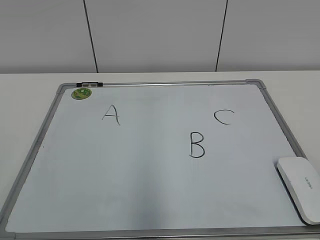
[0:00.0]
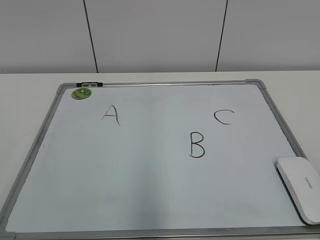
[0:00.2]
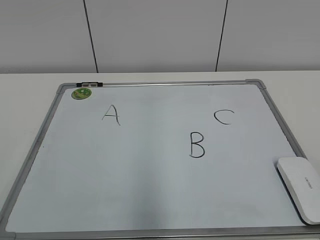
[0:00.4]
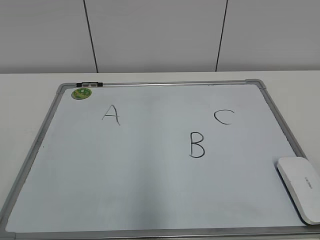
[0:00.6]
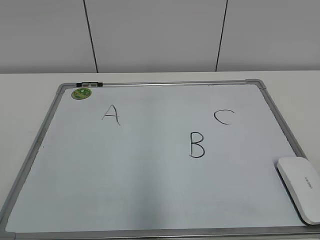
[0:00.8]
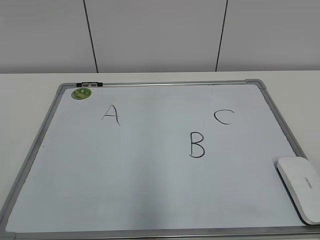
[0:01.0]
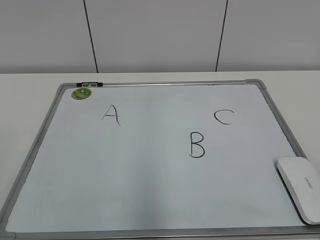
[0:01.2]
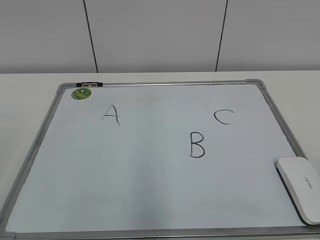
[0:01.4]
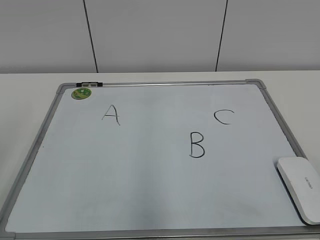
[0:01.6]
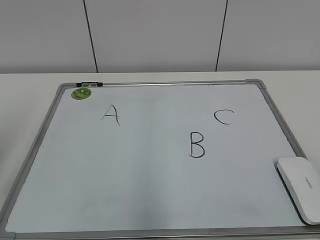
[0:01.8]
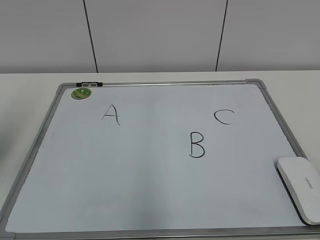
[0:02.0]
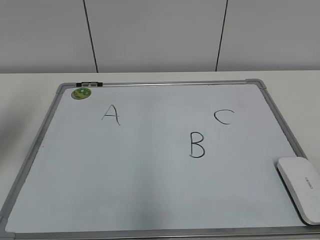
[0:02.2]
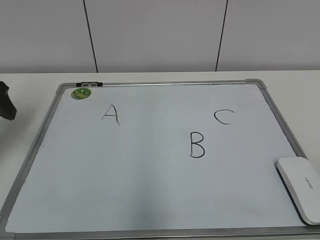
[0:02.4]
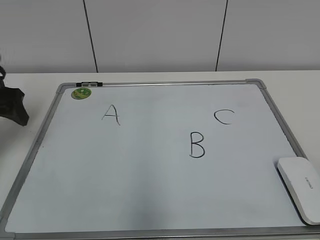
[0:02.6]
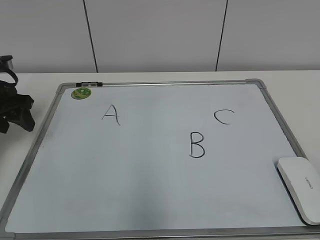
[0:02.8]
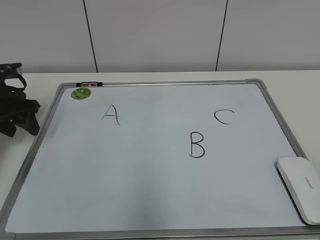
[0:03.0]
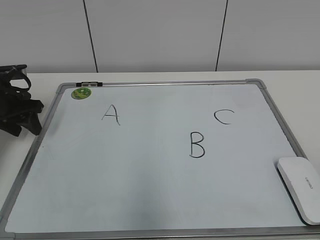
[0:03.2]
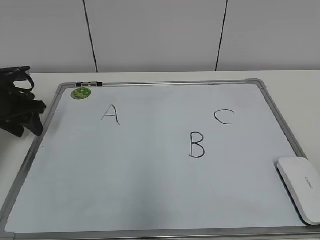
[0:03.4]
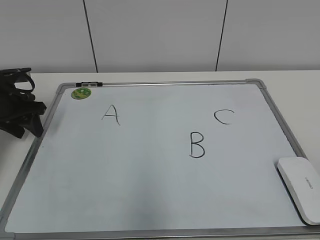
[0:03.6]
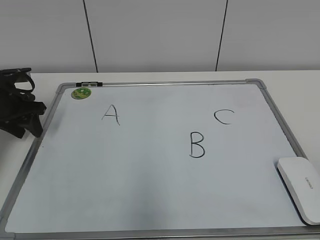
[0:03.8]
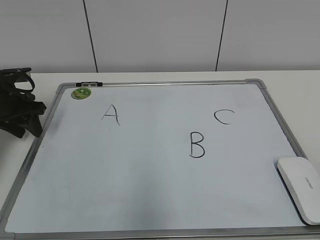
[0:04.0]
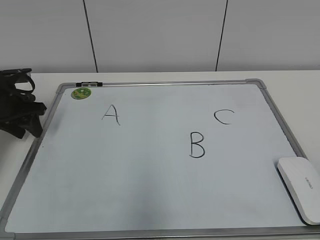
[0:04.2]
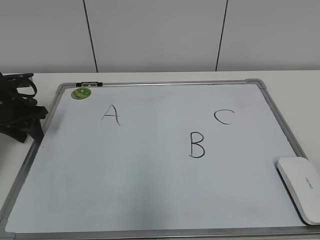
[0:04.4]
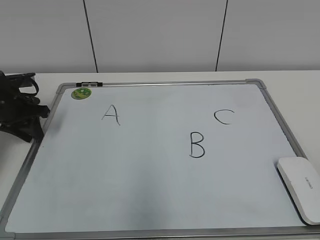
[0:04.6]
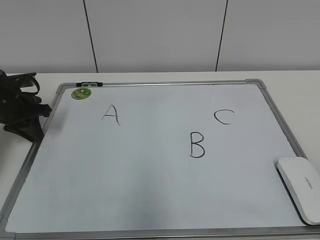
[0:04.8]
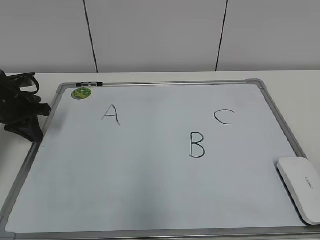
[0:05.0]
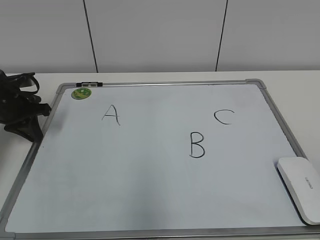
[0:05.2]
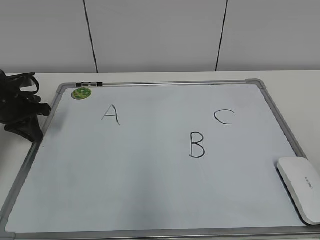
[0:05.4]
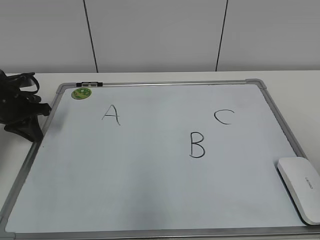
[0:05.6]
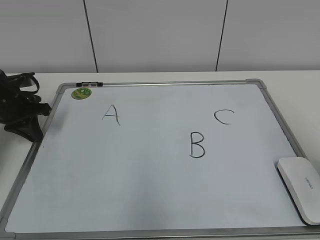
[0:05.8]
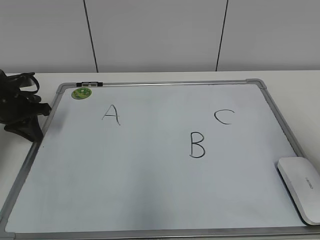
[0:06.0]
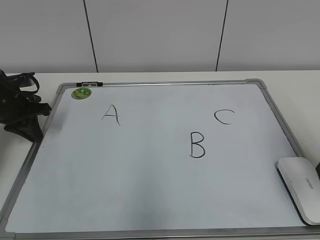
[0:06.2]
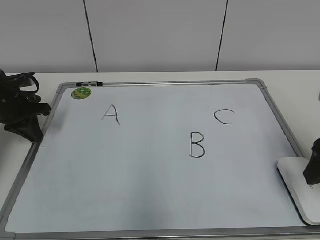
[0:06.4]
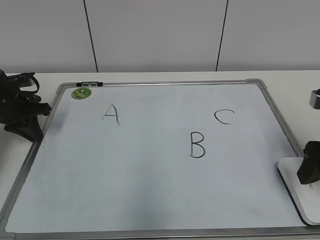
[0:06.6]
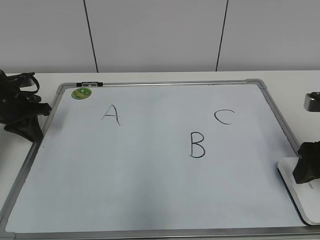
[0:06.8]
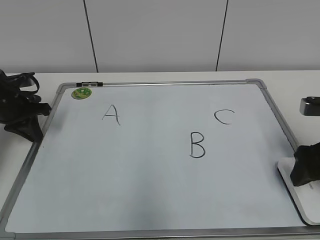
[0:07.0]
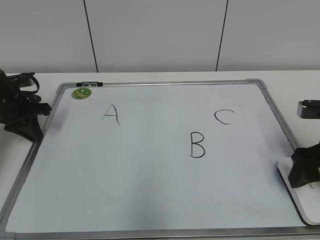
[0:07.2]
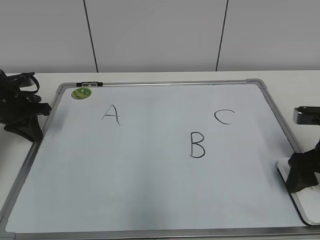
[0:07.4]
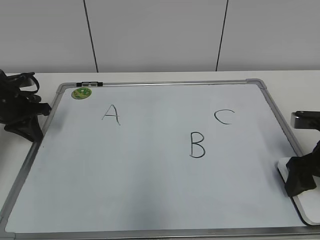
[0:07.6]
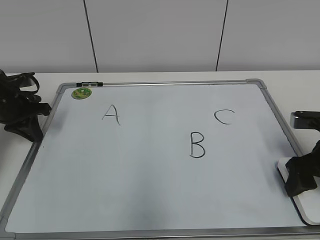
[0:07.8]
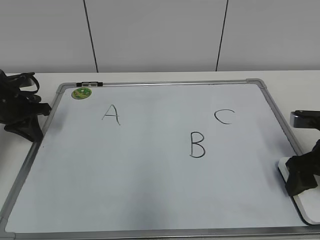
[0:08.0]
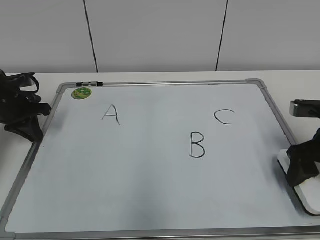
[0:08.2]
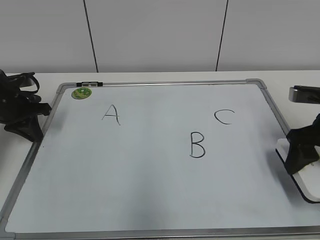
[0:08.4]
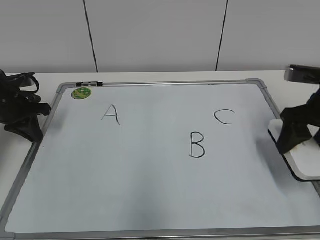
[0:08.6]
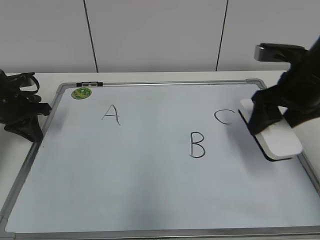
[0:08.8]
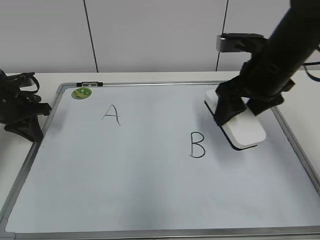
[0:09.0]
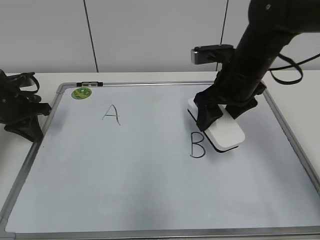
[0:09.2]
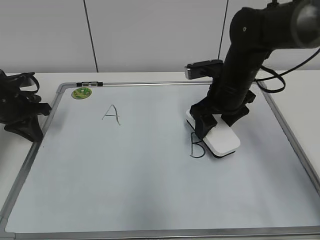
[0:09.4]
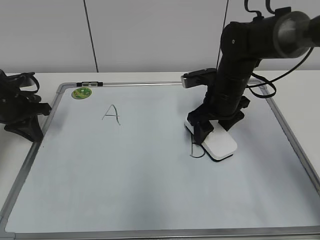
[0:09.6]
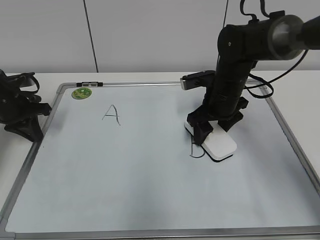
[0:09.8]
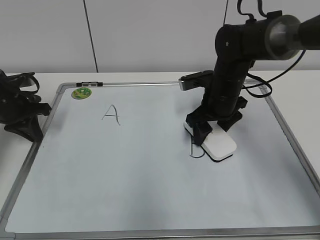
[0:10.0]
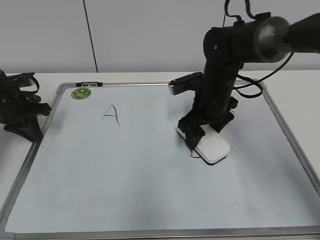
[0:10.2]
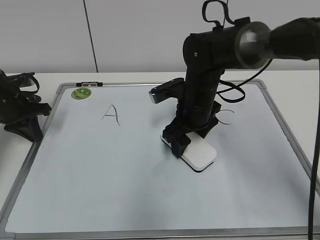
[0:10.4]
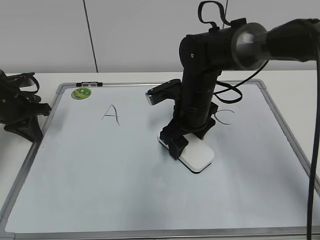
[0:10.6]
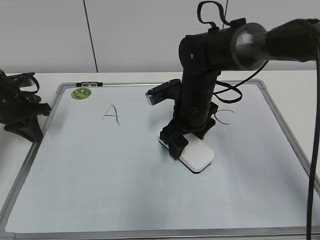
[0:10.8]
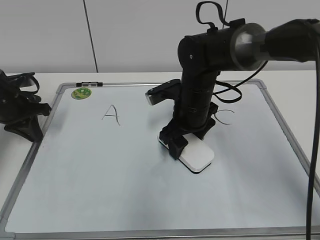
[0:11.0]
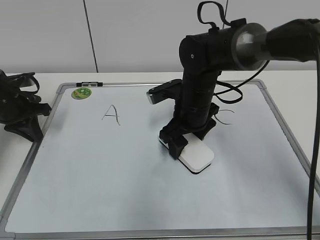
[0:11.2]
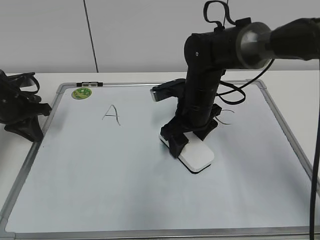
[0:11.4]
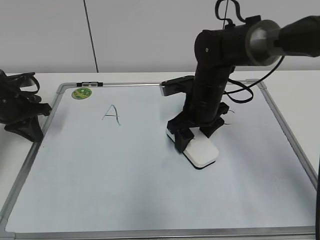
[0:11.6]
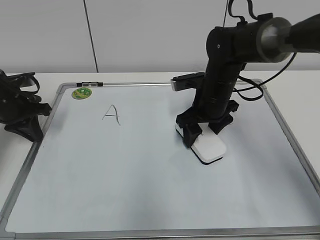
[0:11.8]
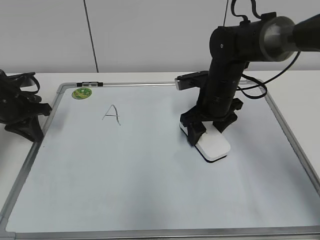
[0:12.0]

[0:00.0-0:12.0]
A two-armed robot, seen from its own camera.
Task of the whole recording: pick up the eraser on the blackboard and erase the letter "B".
Step, 0:00.0 to 0:04.8: Hold the drawing board steady with your left hand.
Step, 0:05.0 to 0:07.8: Grab the eraser with your right hand.
0:01.6 to 0:03.0: The left gripper travels forward and downward by roughly 35 cm.
0:03.0 to 0:04.4: There are only small adjustments of the grippers.
0:04.4 to 0:06.0: The right gripper moves forward, approximately 20 cm. Meanwhile the left gripper closes.
0:06.0 to 0:07.6: The right gripper goes roughly 15 cm downward and forward.
0:07.6 to 0:09.0: The right gripper is displaced upward, to the left and forward by some 15 cm, and closes.
0:09.0 to 0:10.4: The right gripper moves to the left, downward and forward, approximately 15 cm.
0:10.4 to 0:12.0: The right gripper changes place by approximately 5 cm.

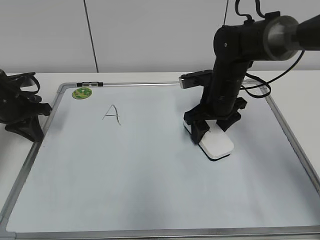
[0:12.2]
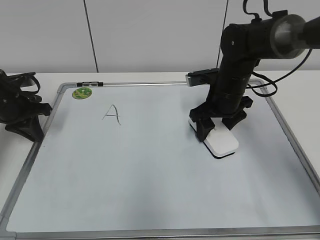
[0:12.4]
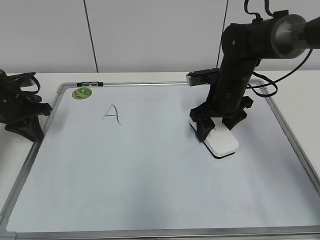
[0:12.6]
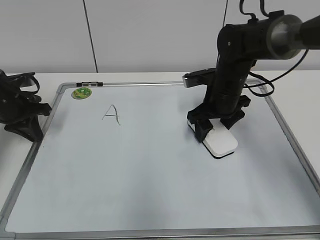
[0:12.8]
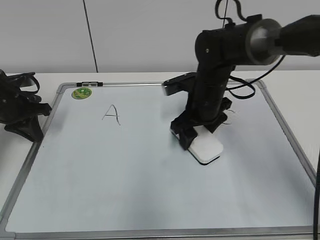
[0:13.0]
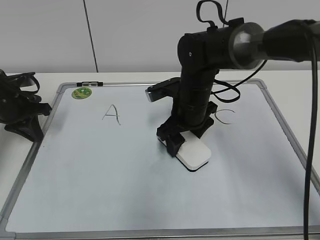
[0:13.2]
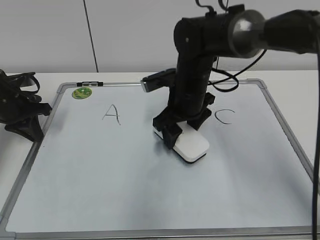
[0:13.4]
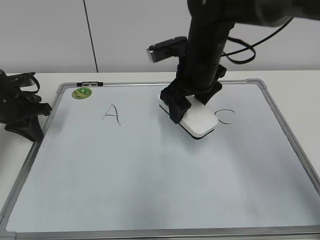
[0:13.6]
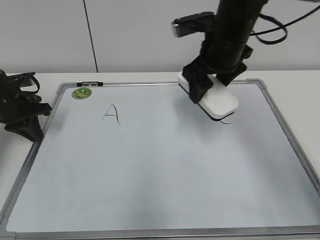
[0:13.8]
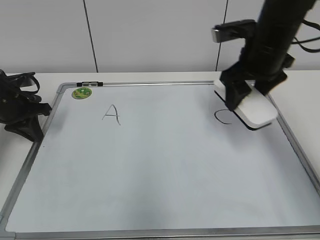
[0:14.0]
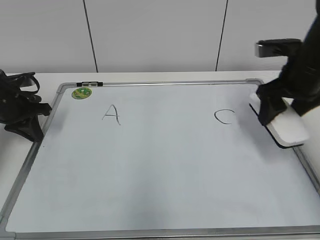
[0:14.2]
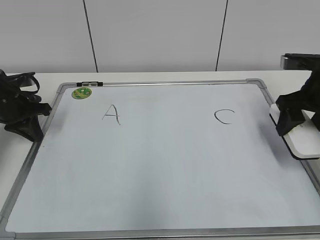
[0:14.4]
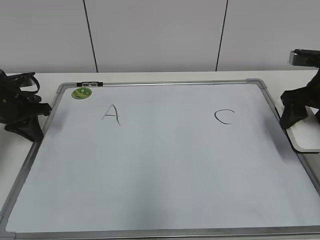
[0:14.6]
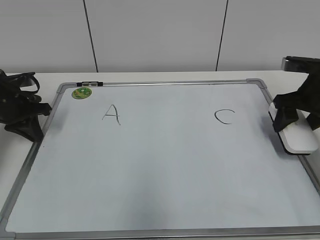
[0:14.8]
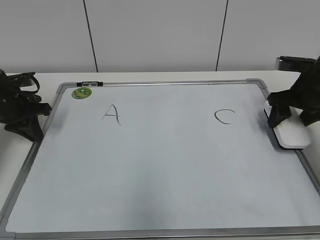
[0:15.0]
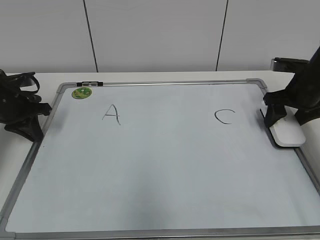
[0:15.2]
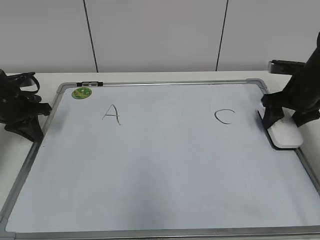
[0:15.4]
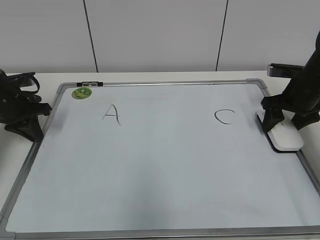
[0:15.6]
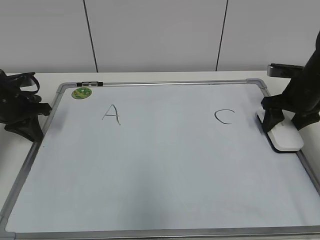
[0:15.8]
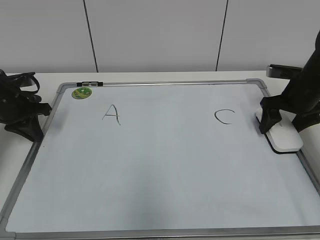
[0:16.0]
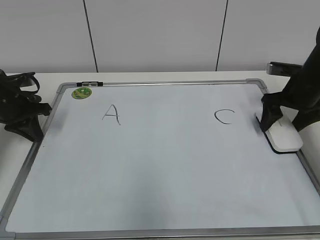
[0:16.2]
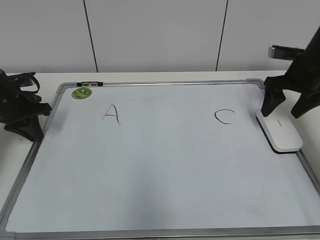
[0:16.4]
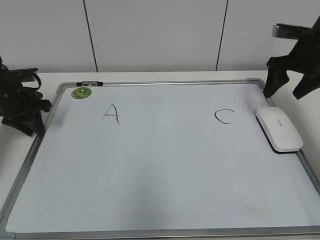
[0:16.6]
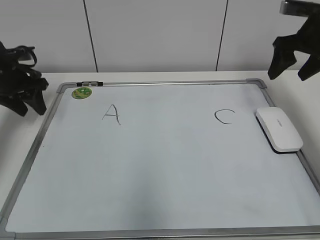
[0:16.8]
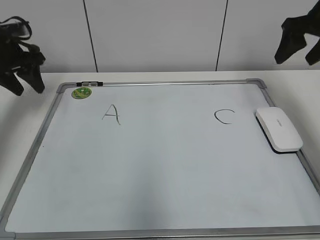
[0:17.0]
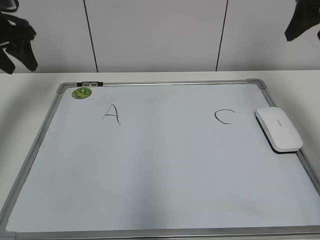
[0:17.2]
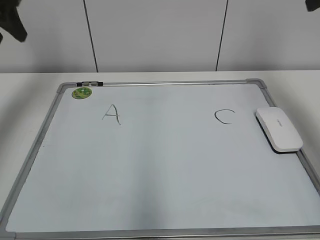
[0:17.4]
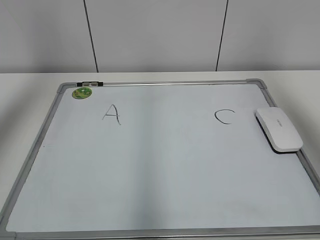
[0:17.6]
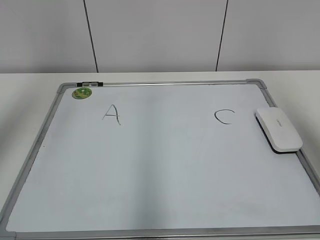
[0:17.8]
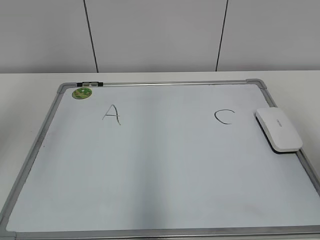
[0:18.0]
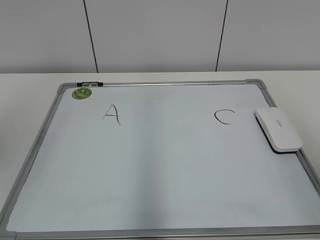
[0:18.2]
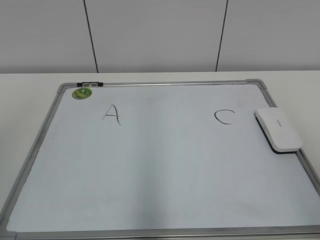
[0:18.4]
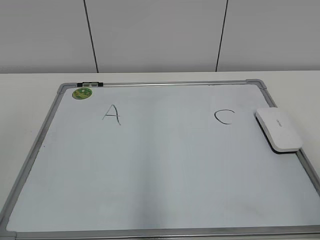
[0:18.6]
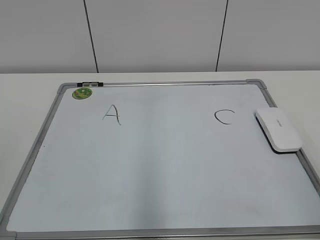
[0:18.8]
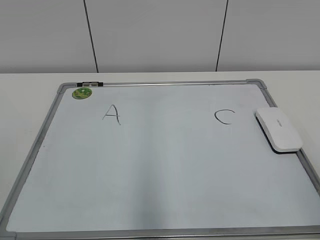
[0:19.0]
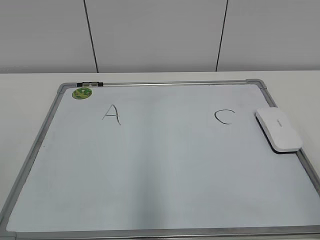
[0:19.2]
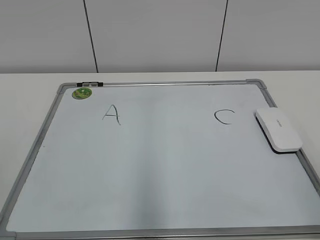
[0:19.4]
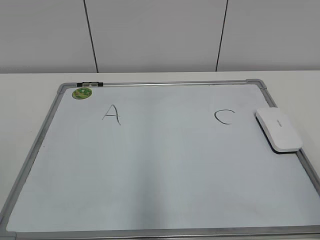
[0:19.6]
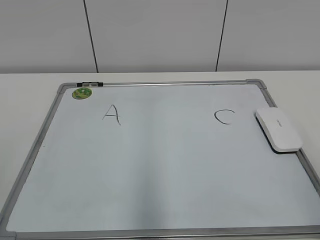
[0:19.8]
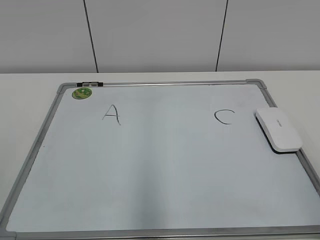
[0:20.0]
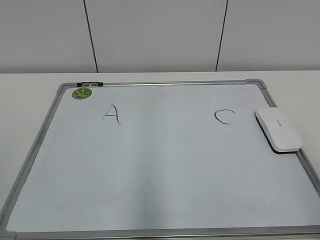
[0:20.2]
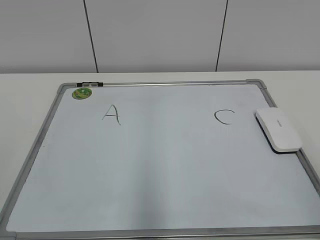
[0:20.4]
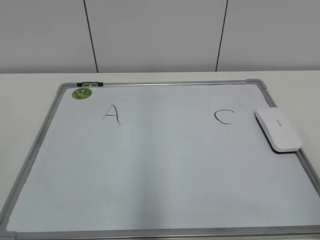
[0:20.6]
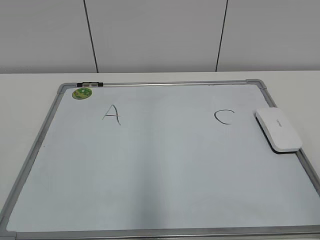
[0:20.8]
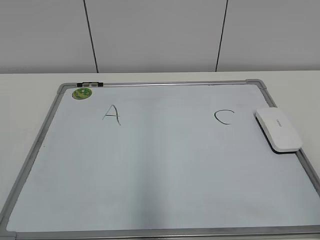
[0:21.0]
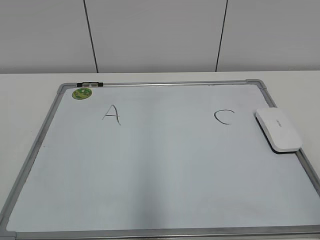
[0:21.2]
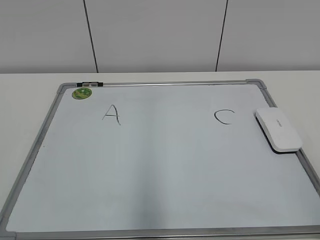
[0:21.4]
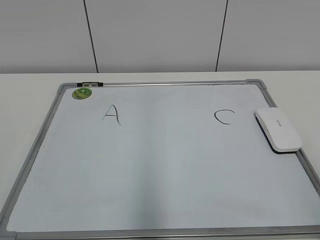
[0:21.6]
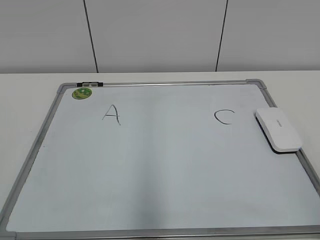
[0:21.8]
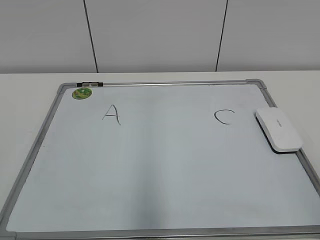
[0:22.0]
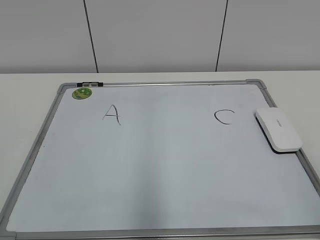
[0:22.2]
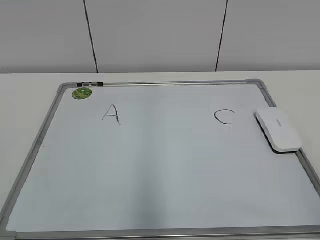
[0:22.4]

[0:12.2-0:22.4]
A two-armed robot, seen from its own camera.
Task of the whole recording: pick up the eraser on the blackboard and erase the letter "B".
Step, 0:13.2 to 0:16.0: Put down the eraser with your right hand.
0:12.2 to 0:13.6: The right gripper travels upward and to the left by approximately 10 cm.
0:13.6 to 0:15.2: The right gripper shifts roughly 25 cm to the right.
0:15.2 to 0:16.6: The right gripper is displaced upward by about 5 cm, and opens.
0:16.6 to 0:18.0: The left gripper heads upward and backward, covering some 40 cm, and opens its fingers. The right gripper is displaced backward and upward by about 35 cm, and closes its fingers.
0:18.0 to 0:19.4: The right gripper heads downward and backward, covering roughly 20 cm.
0:21.0 to 0:22.4: Both grippers stay about where they are.
